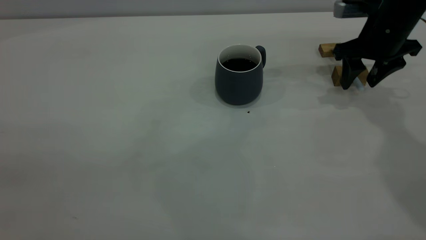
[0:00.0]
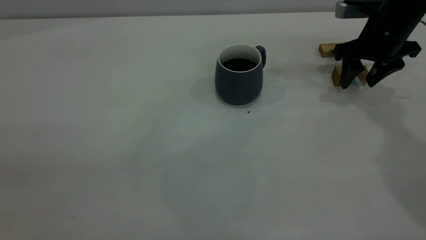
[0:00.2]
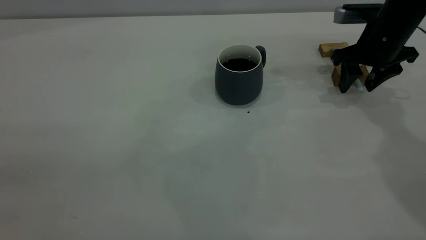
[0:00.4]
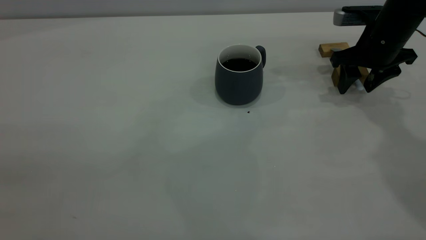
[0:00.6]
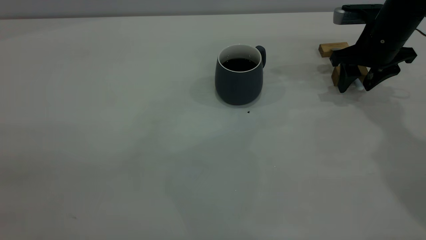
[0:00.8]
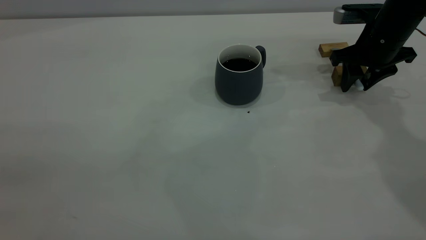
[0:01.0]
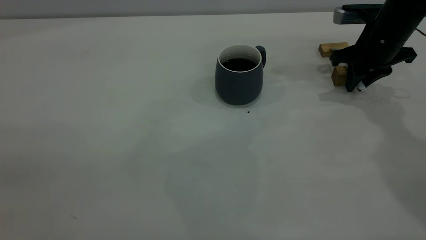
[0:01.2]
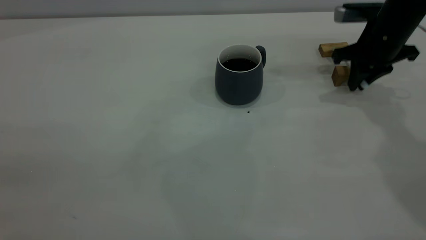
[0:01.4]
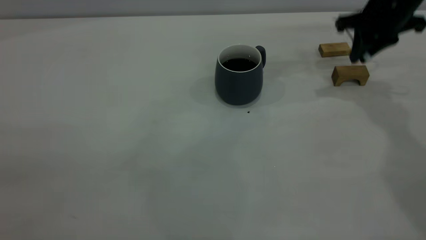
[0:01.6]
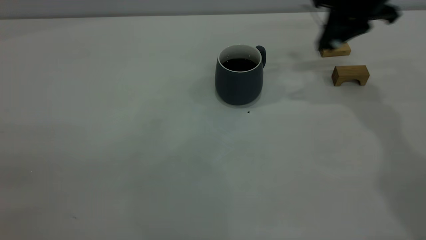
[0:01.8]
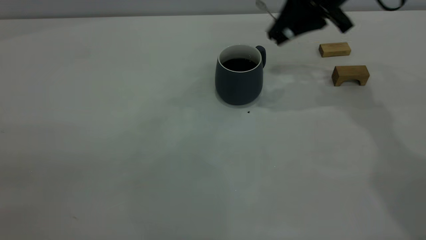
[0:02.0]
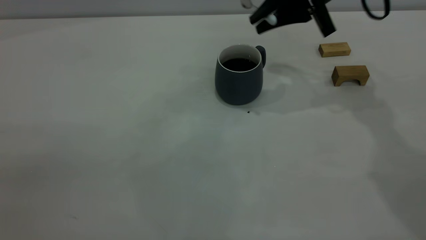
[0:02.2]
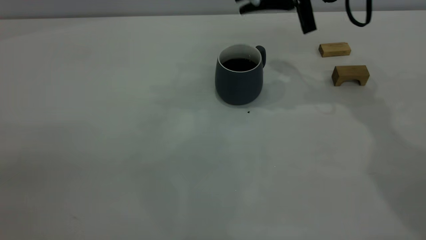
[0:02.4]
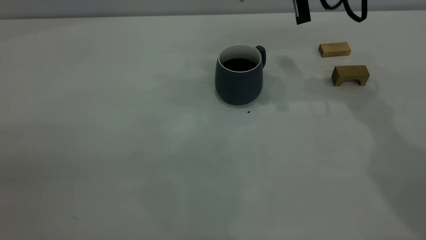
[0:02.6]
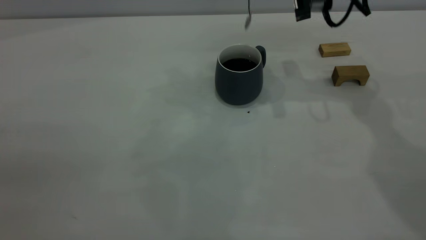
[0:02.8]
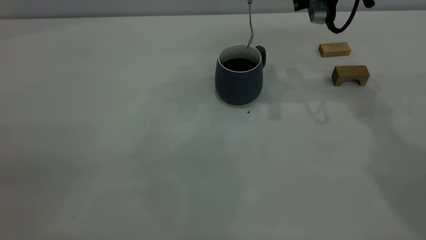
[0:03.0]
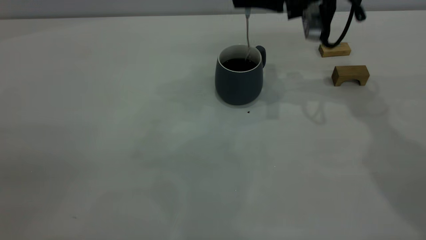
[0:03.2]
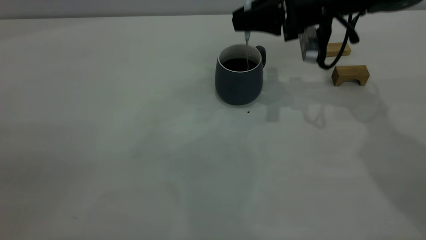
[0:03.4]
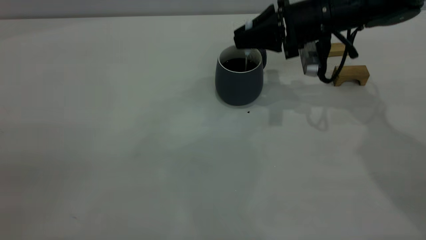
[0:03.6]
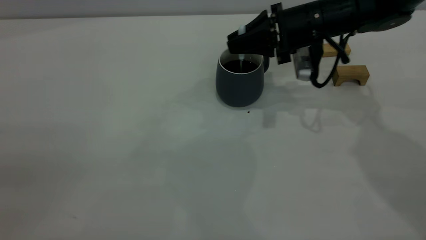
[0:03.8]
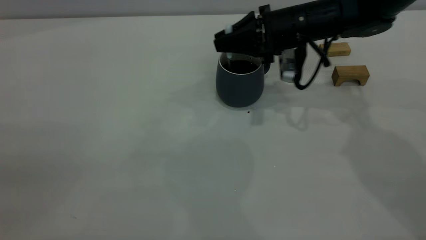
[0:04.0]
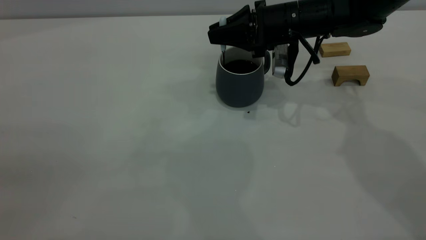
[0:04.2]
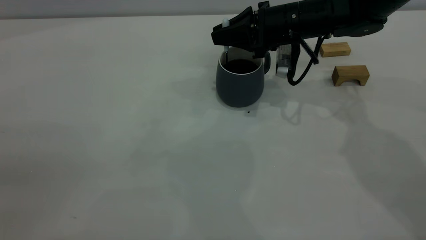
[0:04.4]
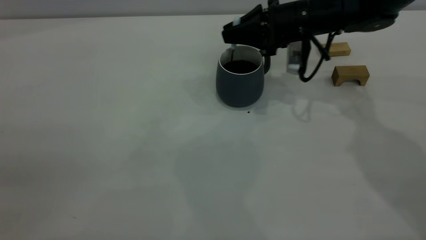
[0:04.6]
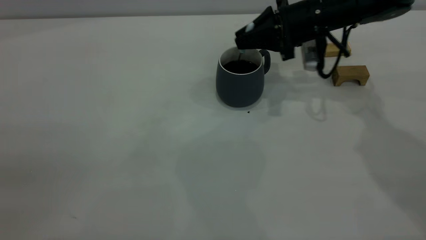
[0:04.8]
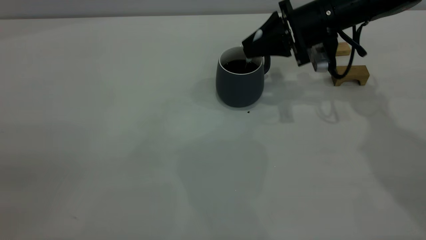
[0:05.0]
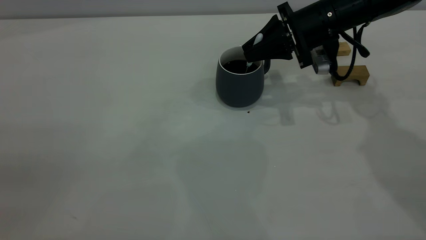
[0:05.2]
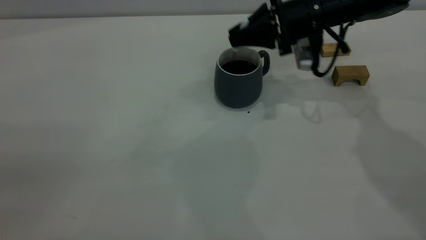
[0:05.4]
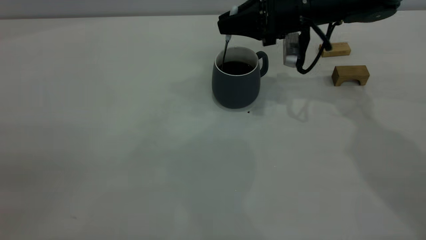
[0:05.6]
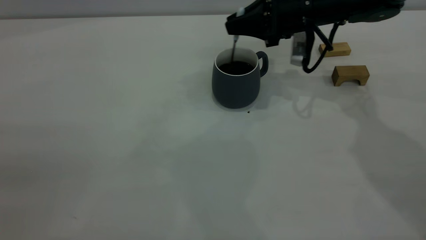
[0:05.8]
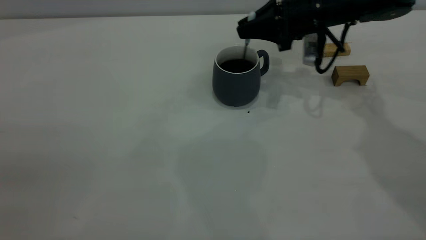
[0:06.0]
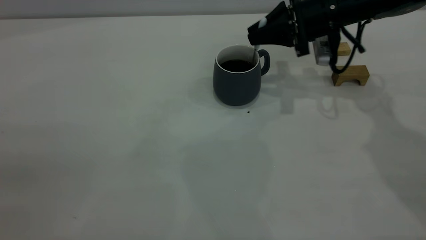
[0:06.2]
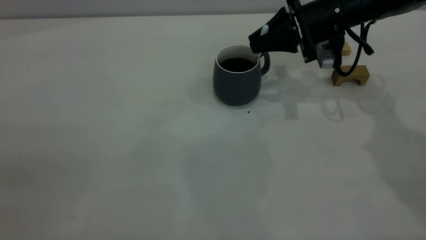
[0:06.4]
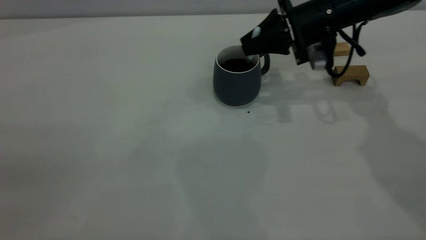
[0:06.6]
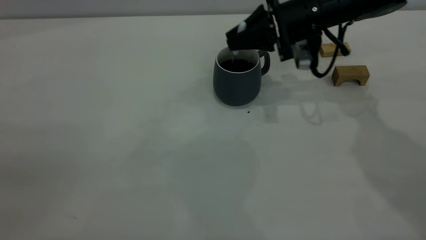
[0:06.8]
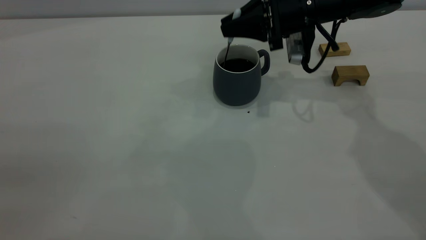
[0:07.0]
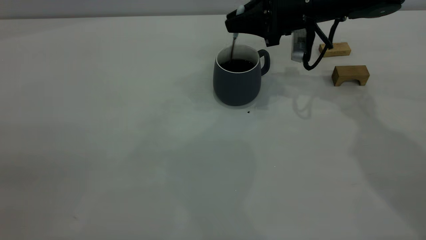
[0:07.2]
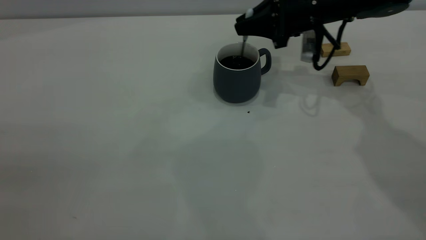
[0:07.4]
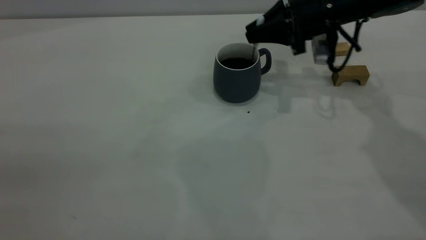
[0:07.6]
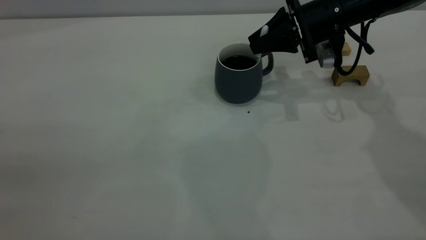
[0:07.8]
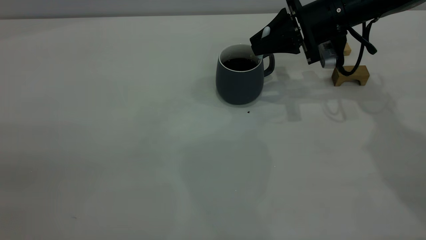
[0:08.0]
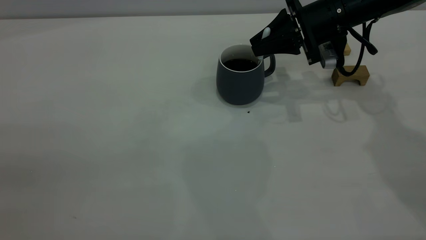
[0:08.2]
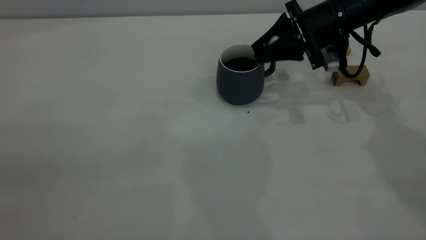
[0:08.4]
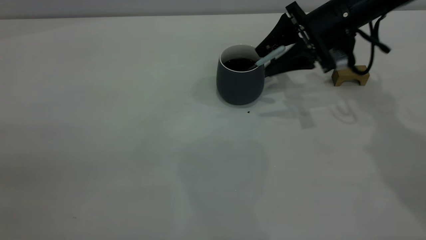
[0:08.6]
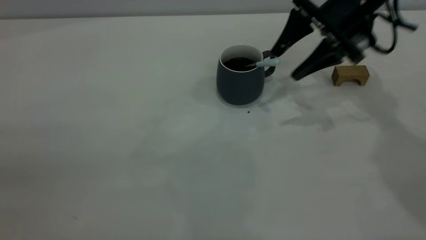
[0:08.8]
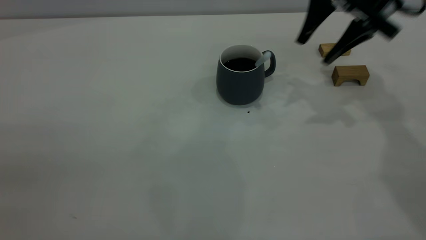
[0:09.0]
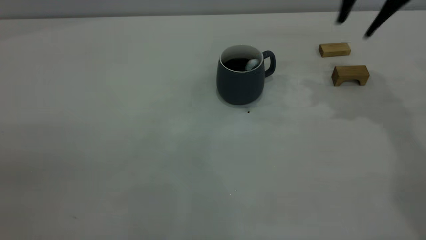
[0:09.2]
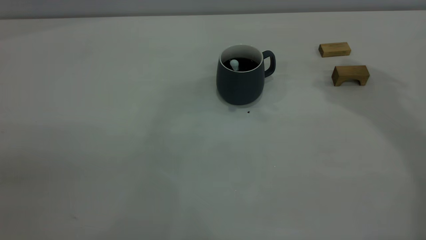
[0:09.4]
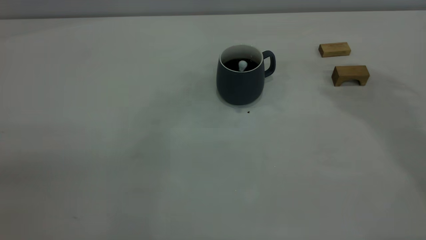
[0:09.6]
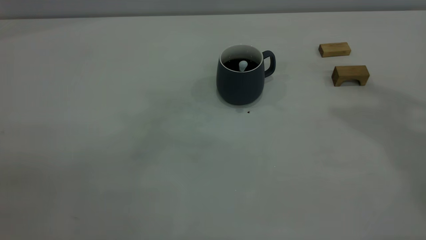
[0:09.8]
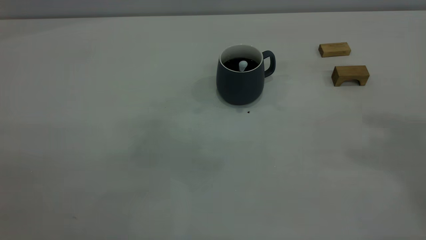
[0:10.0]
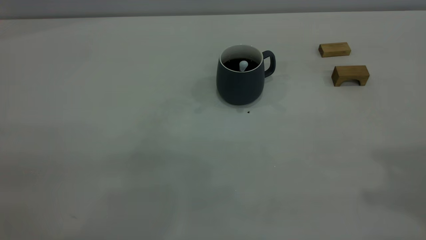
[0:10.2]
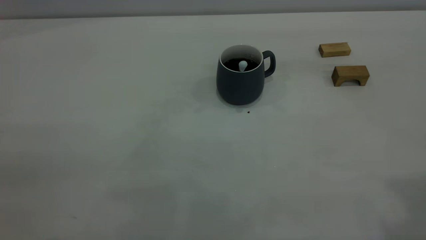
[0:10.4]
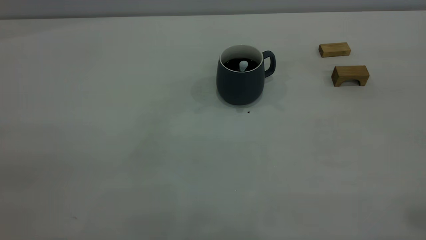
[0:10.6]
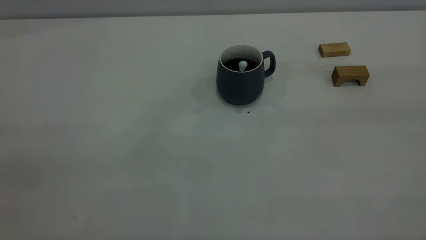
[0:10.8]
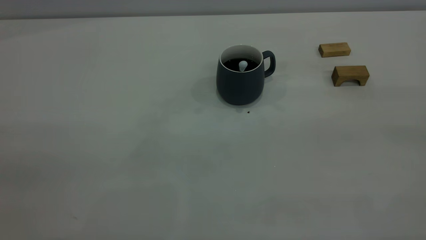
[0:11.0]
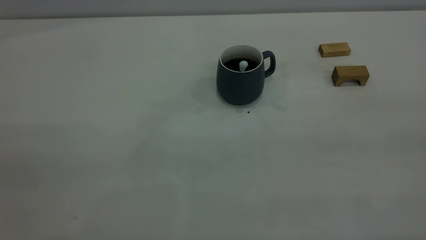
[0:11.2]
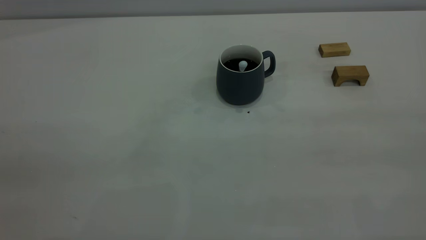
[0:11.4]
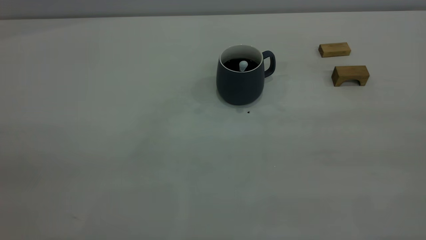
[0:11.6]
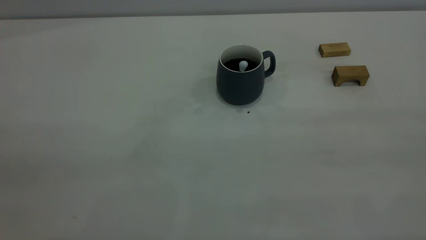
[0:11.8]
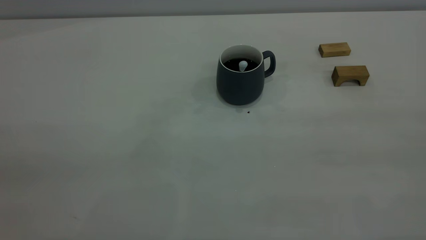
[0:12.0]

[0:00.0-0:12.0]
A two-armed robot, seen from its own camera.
Step, 0:01.8 to 0:08.8: Stir the coffee in the cup.
0:00.0 to 0:01.6: The right gripper heads upward, covering roughly 5 cm, and closes.
0:01.6 to 0:03.0: The right gripper is displaced to the left by roughly 10 cm.
0:03.0 to 0:04.4: The right gripper moves downward, roughly 10 cm.
0:04.4 to 0:07.6: The grippers move only a little.
0:07.6 to 0:09.0: The right gripper goes some 10 cm upward, and opens.
0:09.0 to 0:10.4: The right gripper goes some 40 cm backward and upward, and closes.
